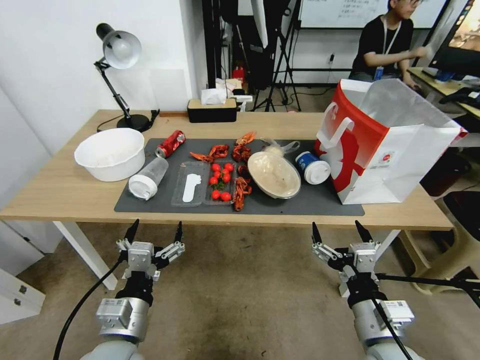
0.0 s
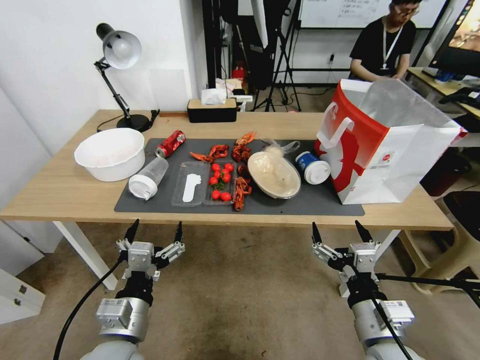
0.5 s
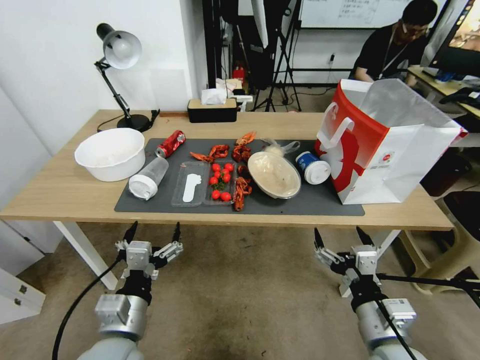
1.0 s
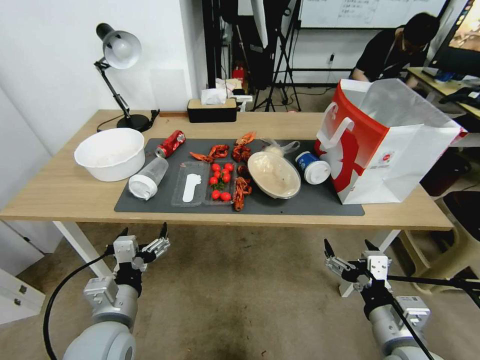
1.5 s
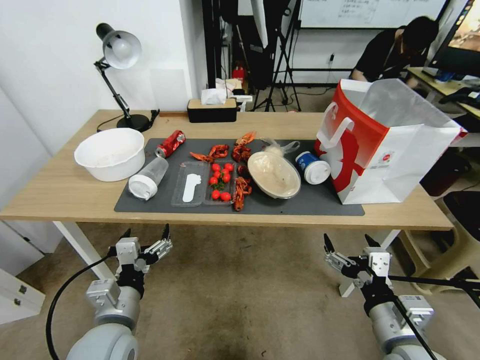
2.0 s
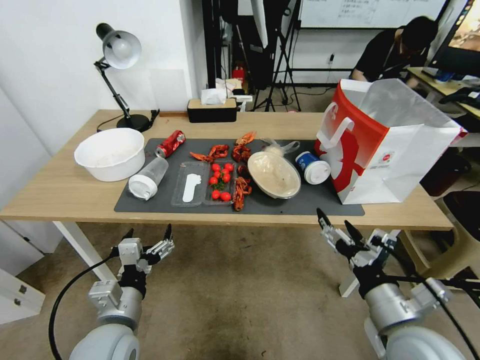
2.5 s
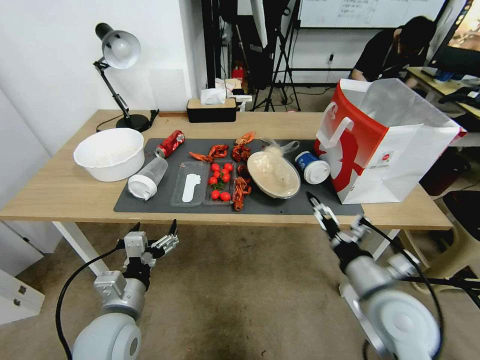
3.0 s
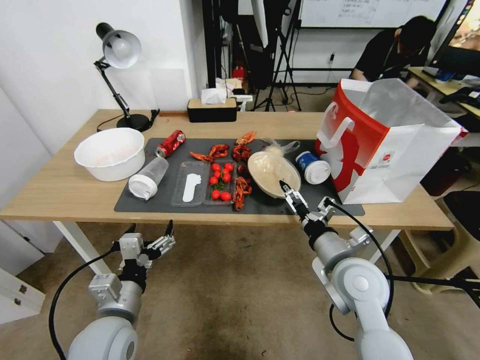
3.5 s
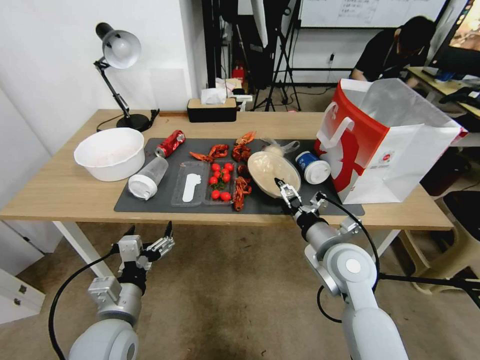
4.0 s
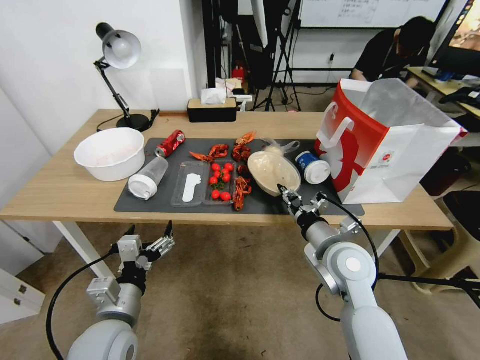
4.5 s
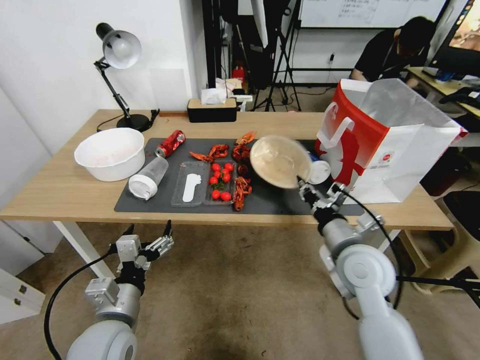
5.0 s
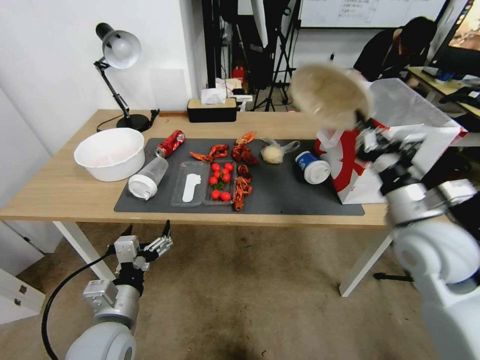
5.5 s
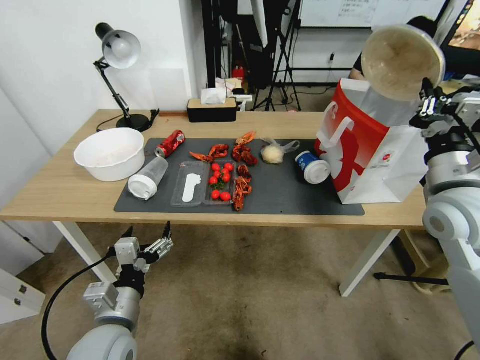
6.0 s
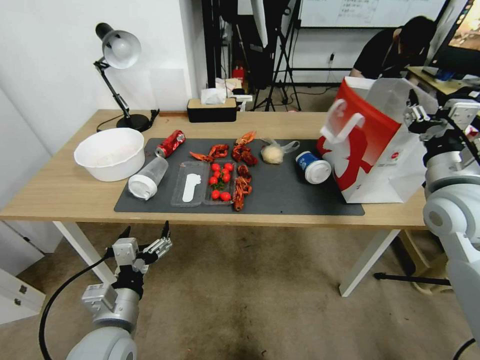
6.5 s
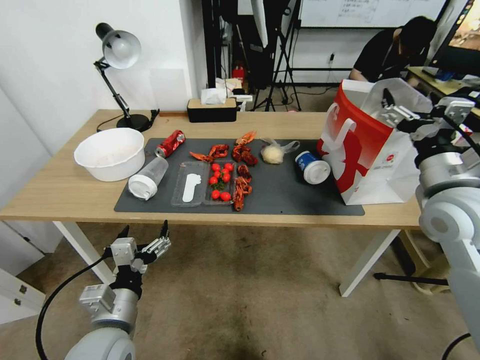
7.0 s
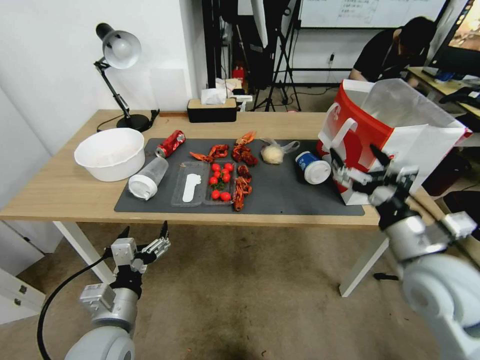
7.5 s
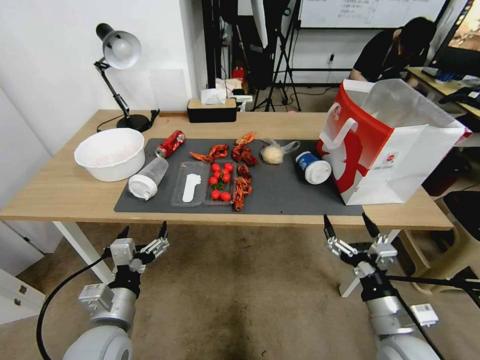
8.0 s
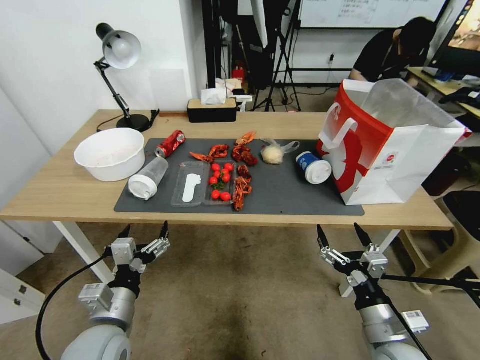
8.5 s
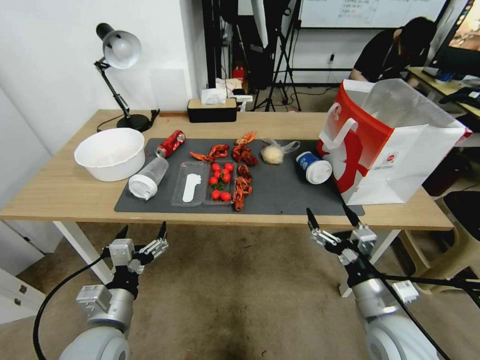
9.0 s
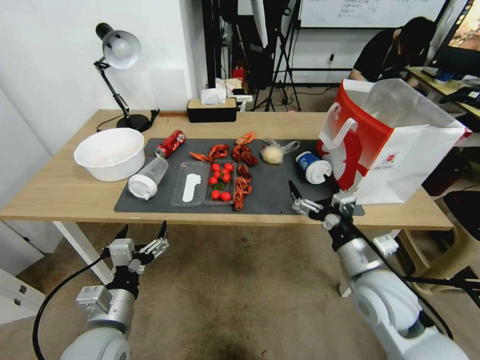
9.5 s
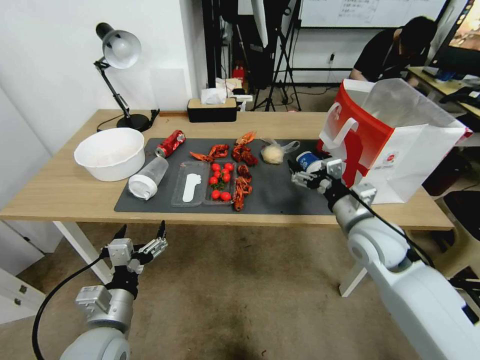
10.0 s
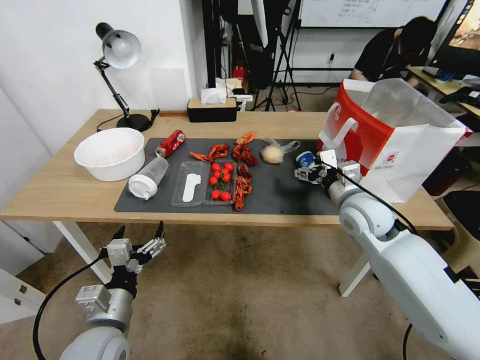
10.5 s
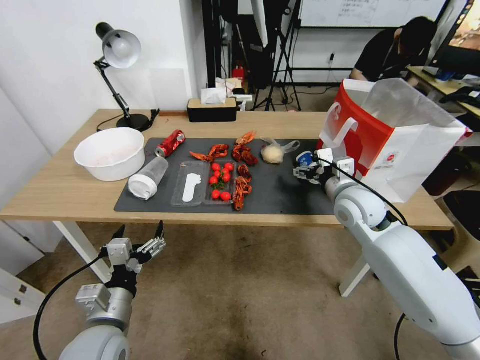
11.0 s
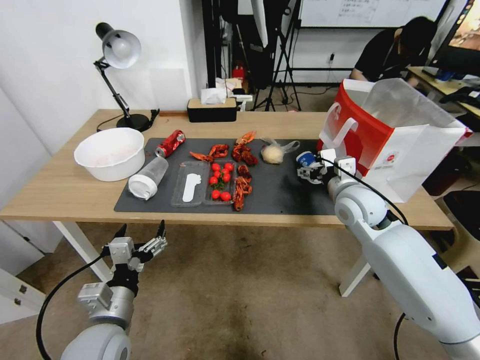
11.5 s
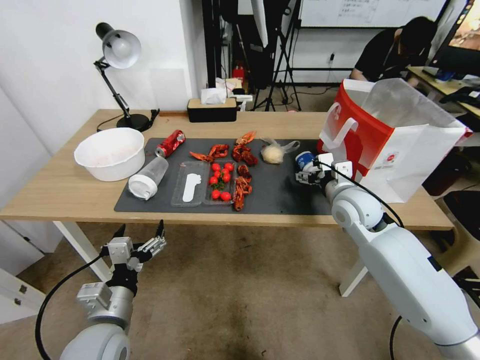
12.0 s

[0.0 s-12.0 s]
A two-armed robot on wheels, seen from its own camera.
2.0 to 4.0 s: The right gripper is displaced forward by roughly 15 cm.
4.0 to 6.0 s: The right gripper is displaced upward and to the right by some 15 cm, and closes.
6.0 to 8.0 s: The right gripper goes roughly 25 cm downward and backward, and opens up.
8.0 to 10.0 s: The right gripper travels forward by roughly 5 cm.
10.0 to 12.0 s: The right gripper moves forward, about 20 cm.

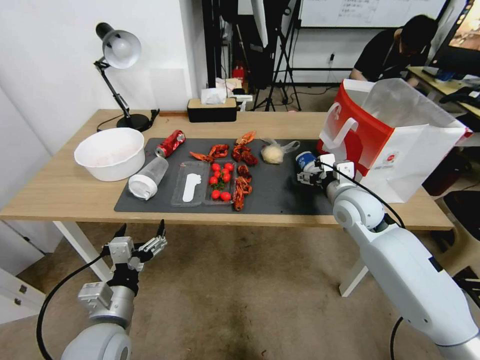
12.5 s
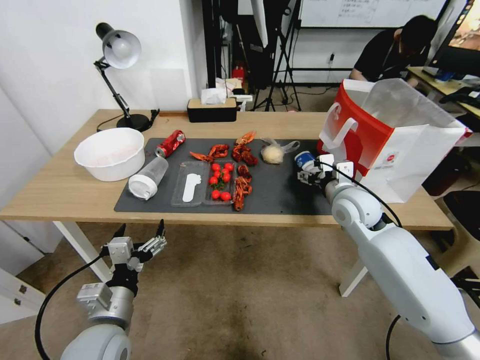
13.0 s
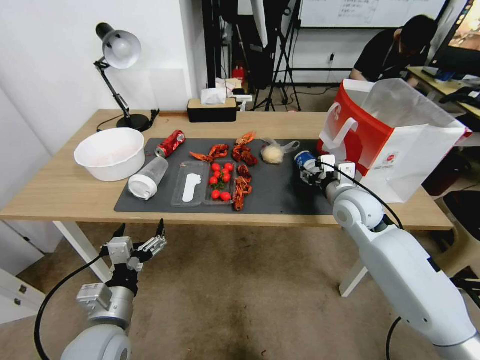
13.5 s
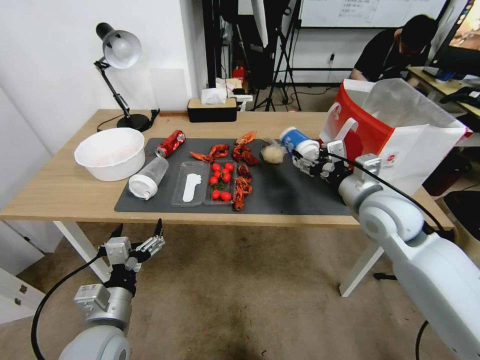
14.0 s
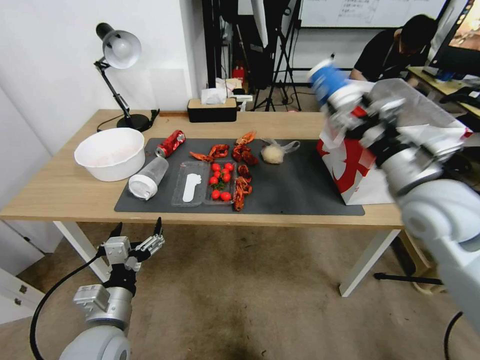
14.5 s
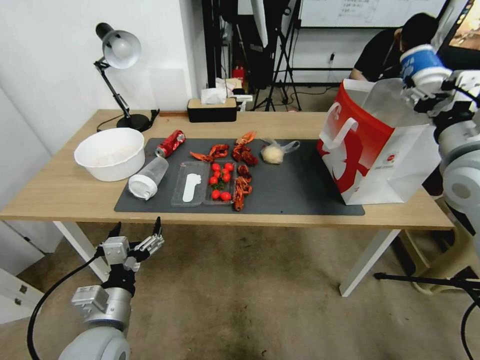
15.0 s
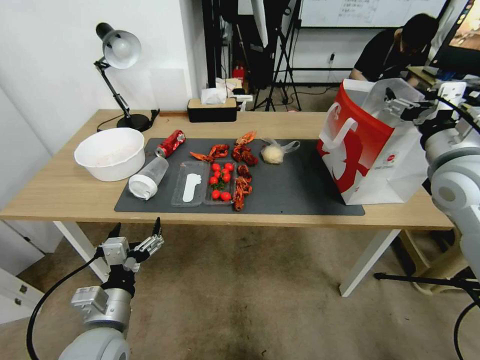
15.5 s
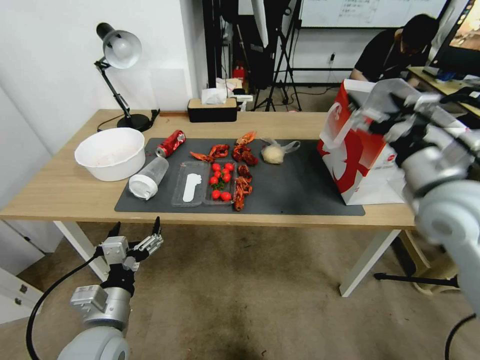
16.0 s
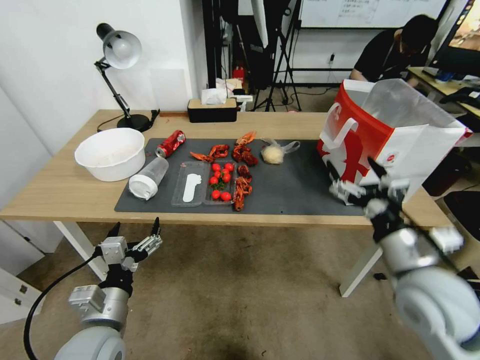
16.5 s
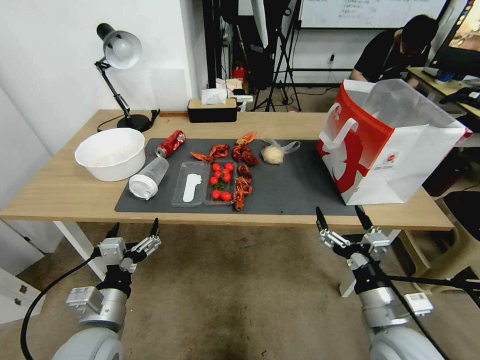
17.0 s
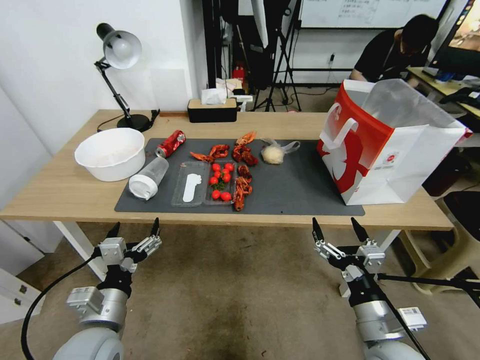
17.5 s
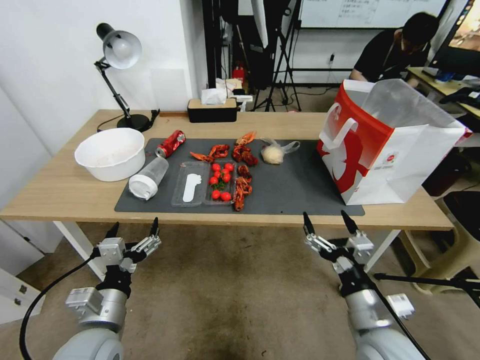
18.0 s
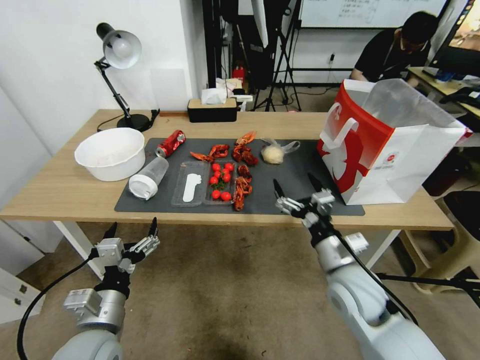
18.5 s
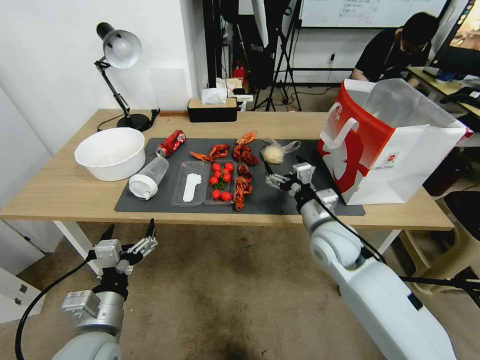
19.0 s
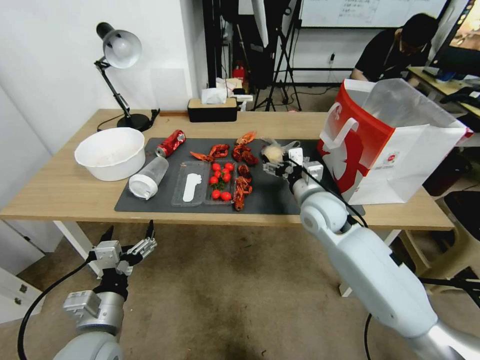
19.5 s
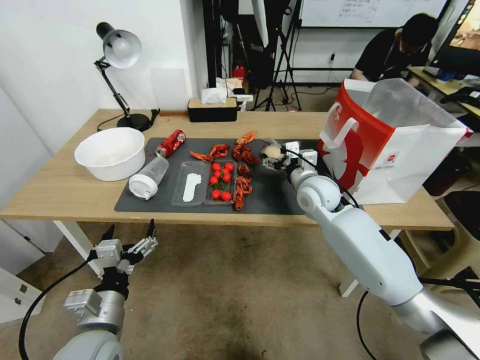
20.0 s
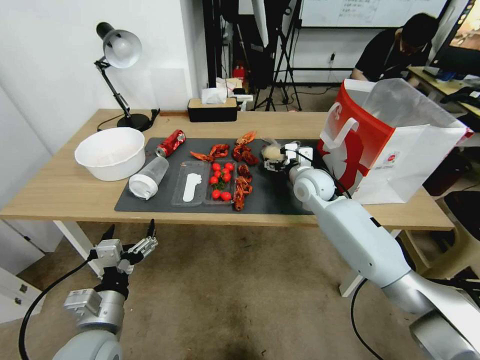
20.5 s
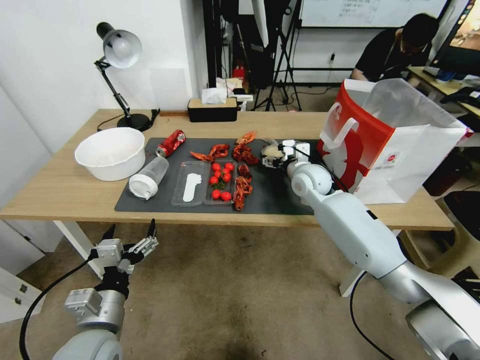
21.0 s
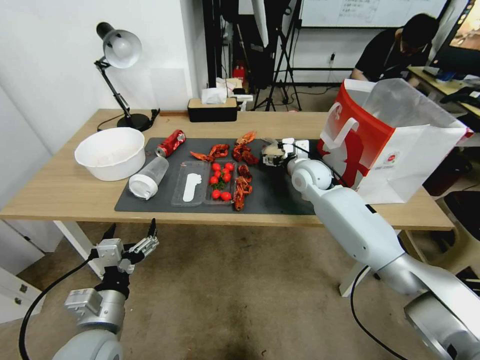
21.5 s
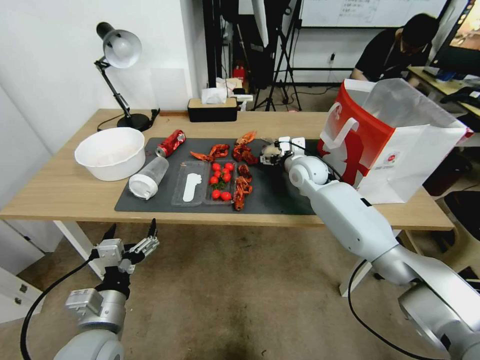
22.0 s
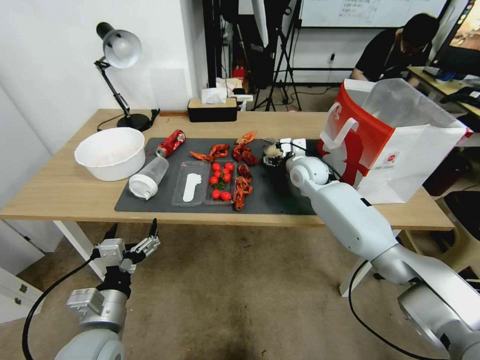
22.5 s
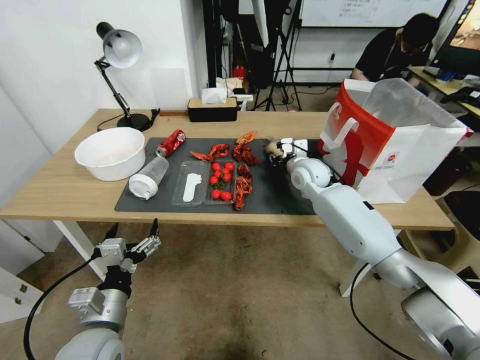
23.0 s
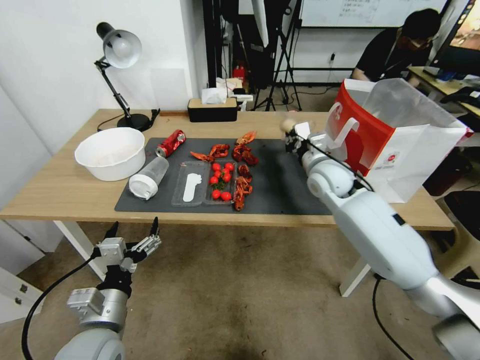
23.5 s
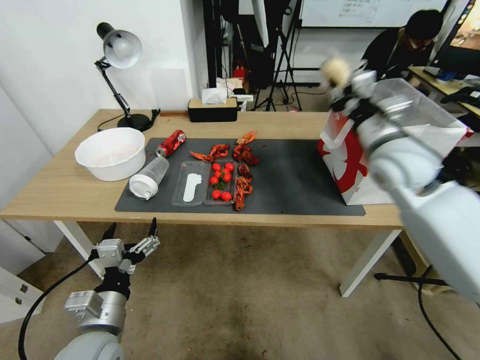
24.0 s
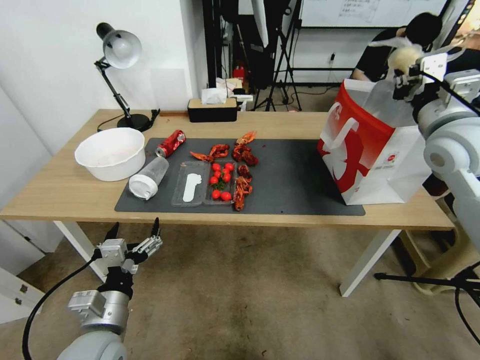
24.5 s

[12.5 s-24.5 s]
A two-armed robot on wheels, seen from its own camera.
12.5 to 14.5 s: The right gripper moves upward and backward, approximately 15 cm, and closes.
14.5 to 16.5 s: The right gripper moves backward and downward, about 10 cm, and opens up.
16.5 to 18.5 s: The right gripper travels downward and to the left by approximately 15 cm.
18.5 to 20.5 s: The right gripper heads forward, covering about 25 cm.
20.5 to 22.5 s: There are only small adjustments of the grippers.
22.5 to 24.5 s: The right gripper goes approximately 30 cm upward, to the right and backward, and closes up.

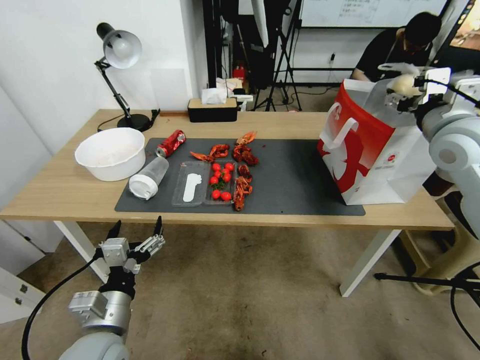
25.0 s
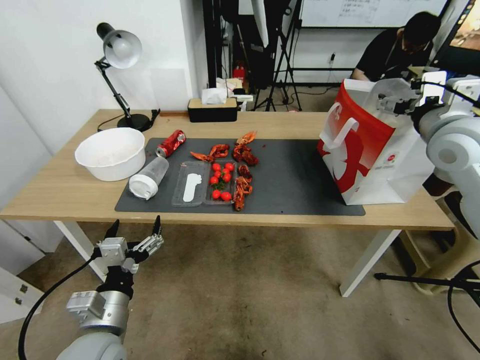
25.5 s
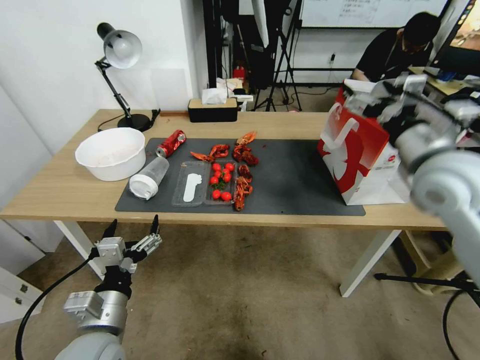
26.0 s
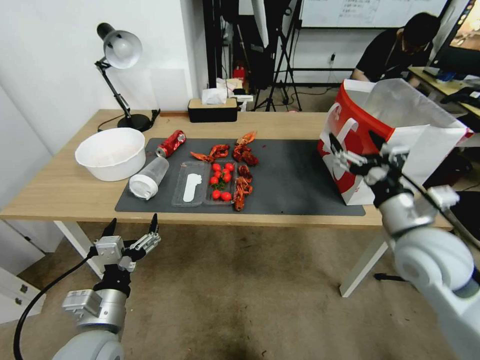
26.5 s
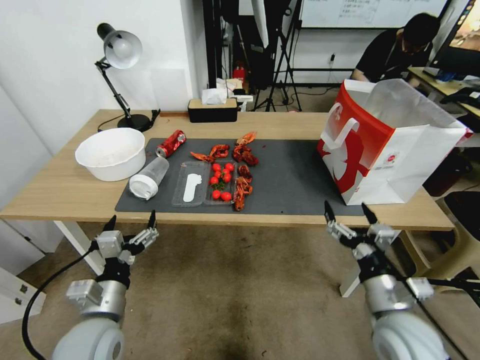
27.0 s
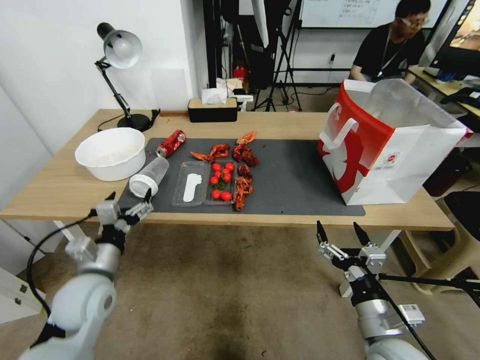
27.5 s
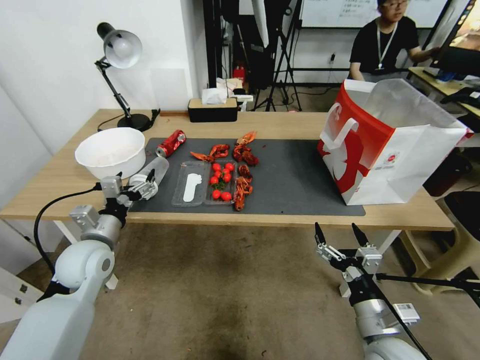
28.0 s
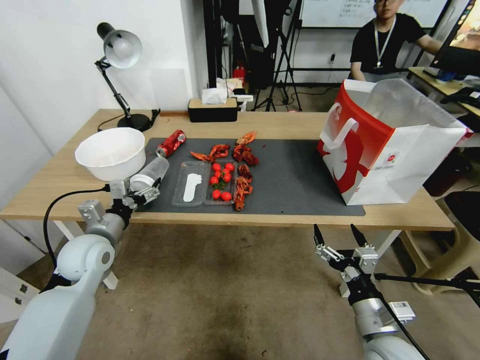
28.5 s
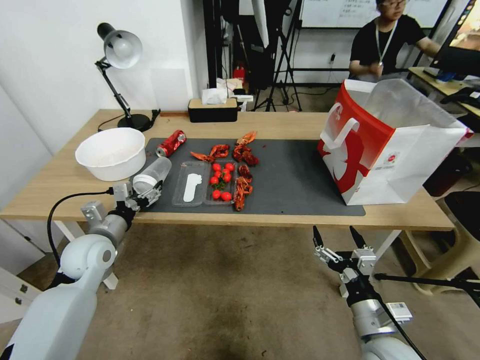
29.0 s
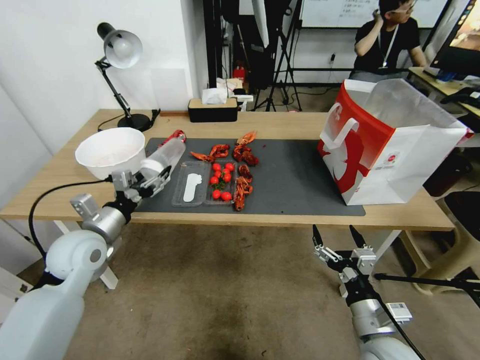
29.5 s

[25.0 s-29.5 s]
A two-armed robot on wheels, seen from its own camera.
25.0 to 27.0 s: The right gripper travels downward and backward by some 30 cm.
27.0 to 29.5 s: The right gripper moves downward and backward, roughly 10 cm; the left gripper shifts approximately 20 cm forward, to the left and upward.
